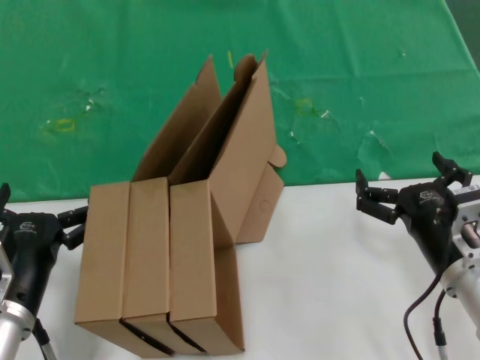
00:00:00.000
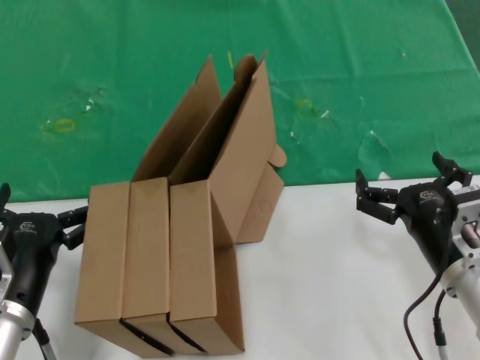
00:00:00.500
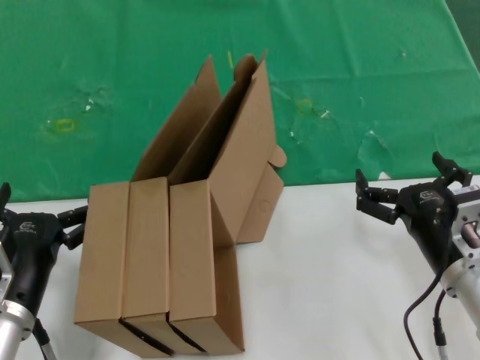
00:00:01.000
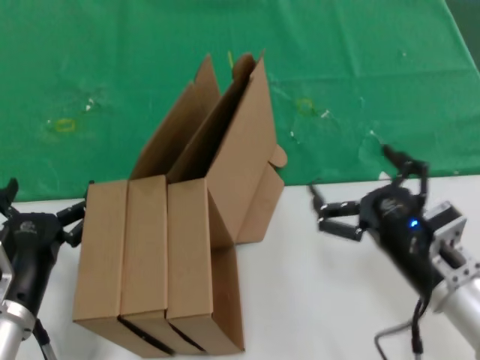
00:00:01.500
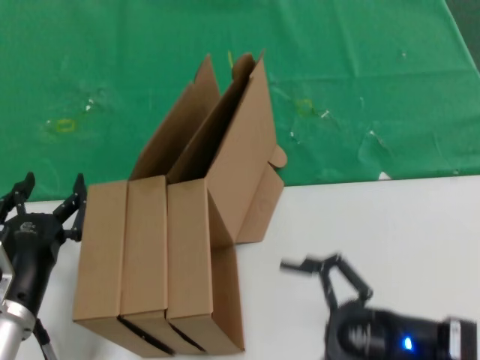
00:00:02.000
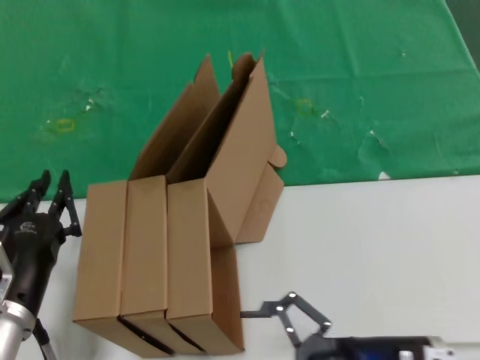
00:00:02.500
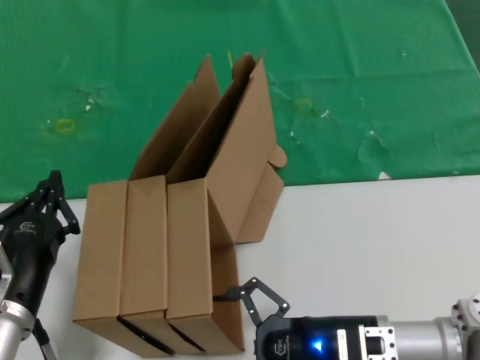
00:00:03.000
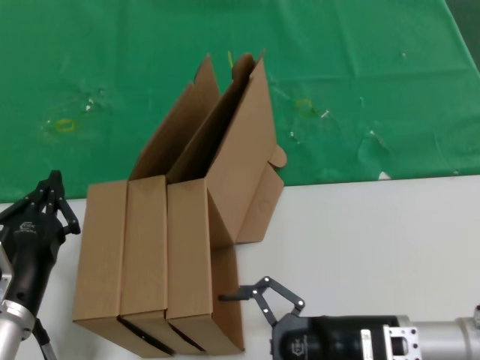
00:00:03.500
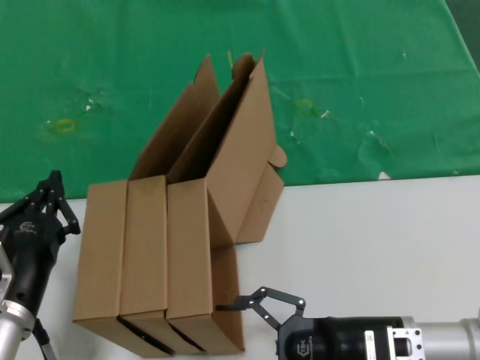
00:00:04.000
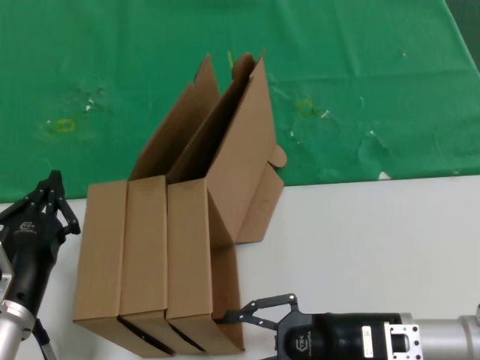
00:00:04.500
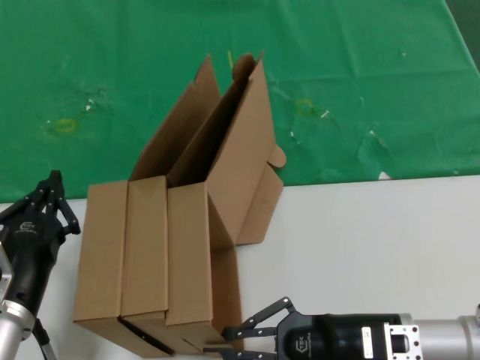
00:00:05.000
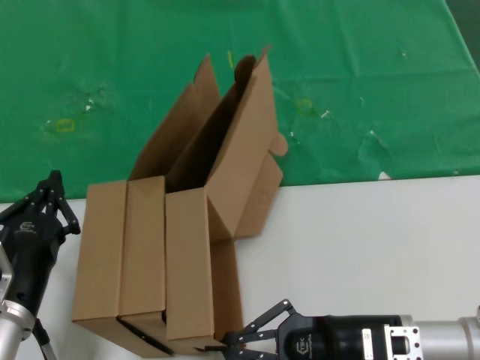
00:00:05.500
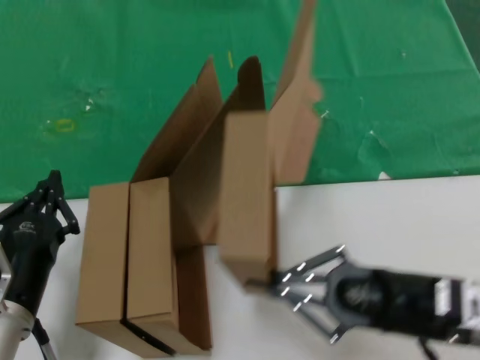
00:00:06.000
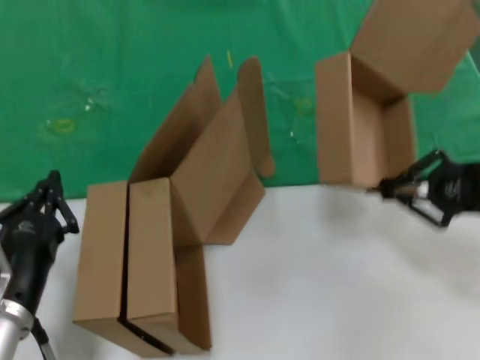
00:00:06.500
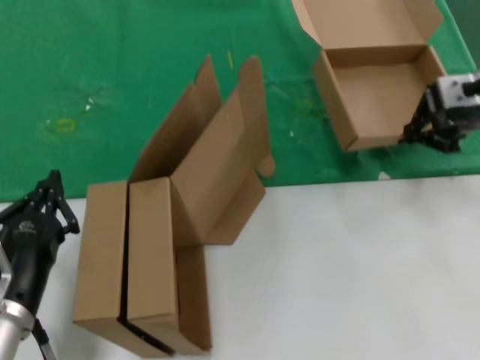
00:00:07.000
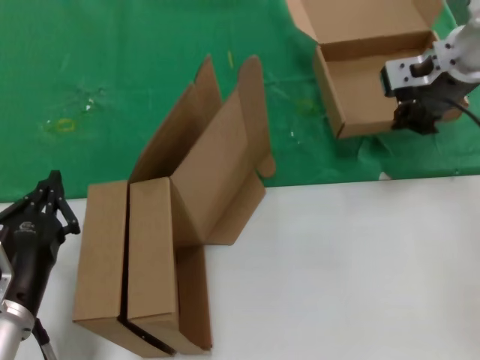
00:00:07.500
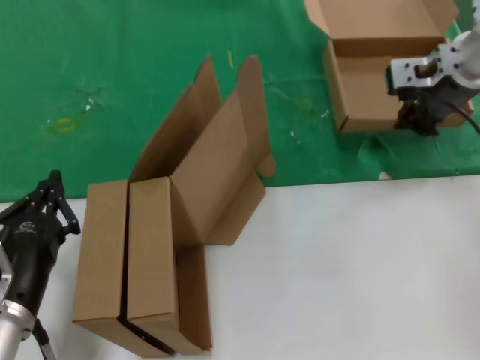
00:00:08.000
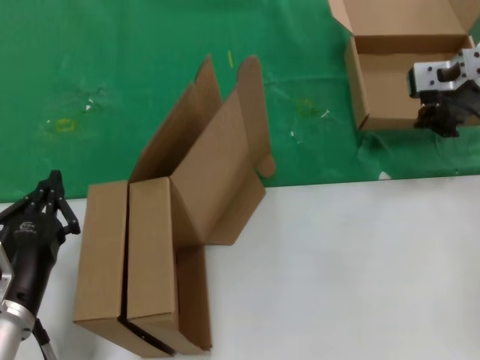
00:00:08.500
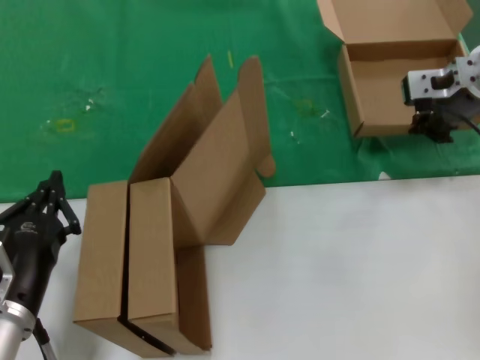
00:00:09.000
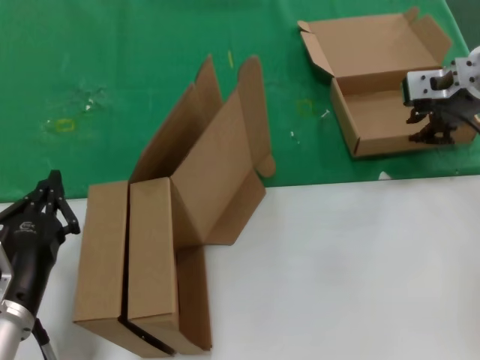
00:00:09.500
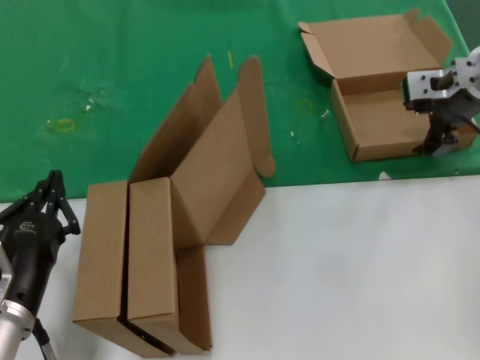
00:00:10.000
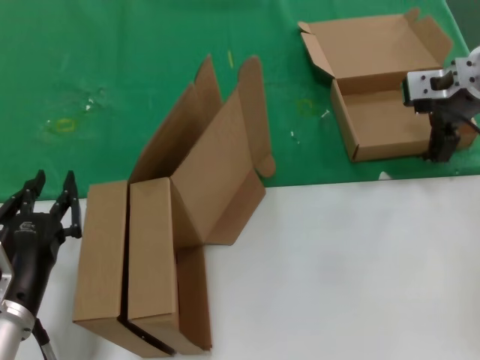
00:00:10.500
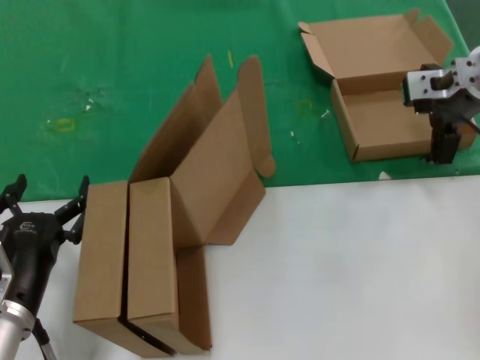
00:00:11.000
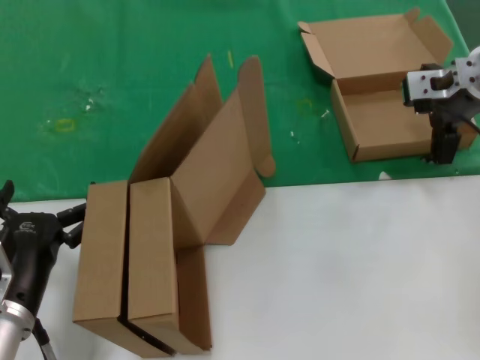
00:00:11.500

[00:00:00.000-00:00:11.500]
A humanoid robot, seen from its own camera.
Task of the whole recording: pick up the paper box and put it at the back.
Step, 00:00:00.000 to 00:00:05.000: Grasp the paper box.
Step, 00:00:05.500 to 00:00:09.500: Place the paper box on the table.
00:00:00.000 to 00:00:02.000: The right hand moves backward, roughly 5 cm.
00:00:02.000 to 00:00:04.000: The right hand goes some 5 cm forward.
00:00:04.000 to 00:00:06.000: The right hand goes some 5 cm upward.
00:00:06.000 to 00:00:07.500: The right hand moves forward and upward, about 35 cm.
00:00:07.500 to 00:00:09.500: There are only small adjustments of the hands.
00:00:09.500 to 00:00:11.500: Both hands stay about where they are.

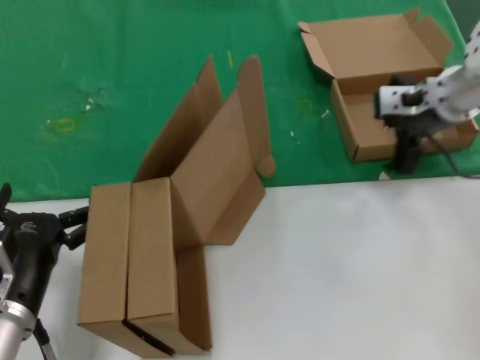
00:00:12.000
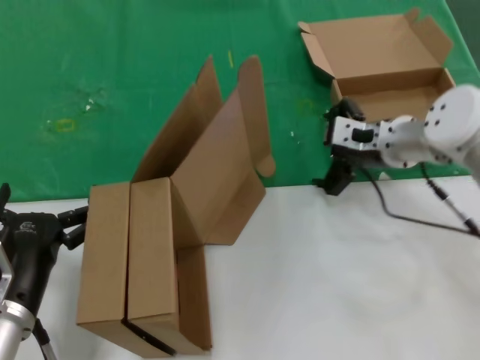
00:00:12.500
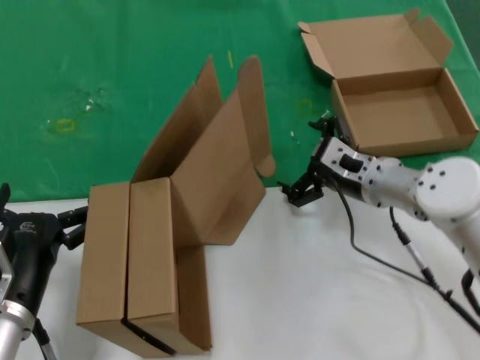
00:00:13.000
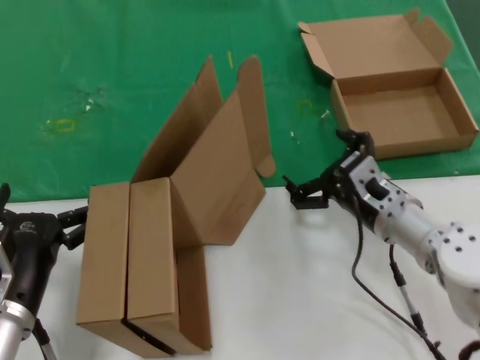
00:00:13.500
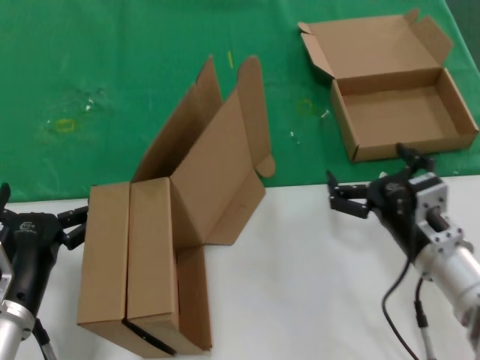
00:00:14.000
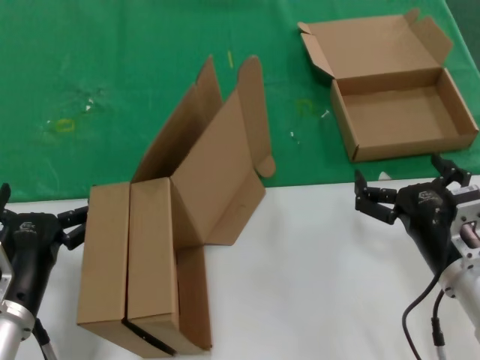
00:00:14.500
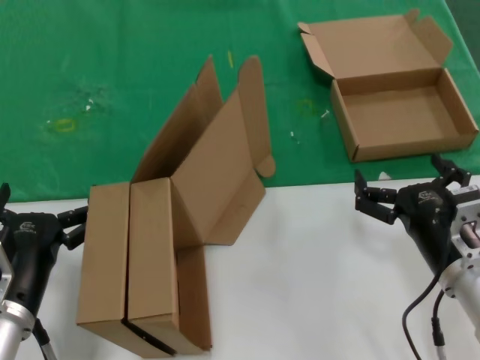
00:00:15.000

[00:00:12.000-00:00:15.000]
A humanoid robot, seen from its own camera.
Task of the whole recording: pick up the paper box and put it at the back.
00:00:12.000 to 00:00:13.500: The right hand shifts some 20 cm downward and backward.
00:00:13.500 to 00:00:15.000: The right hand heads backward, covering about 10 cm.
